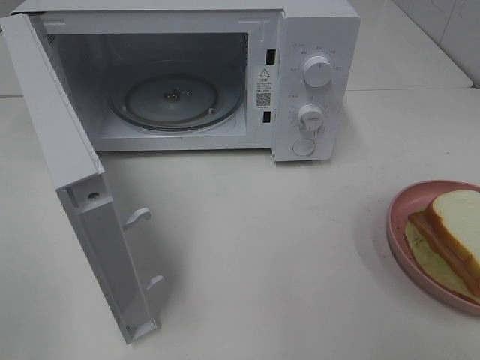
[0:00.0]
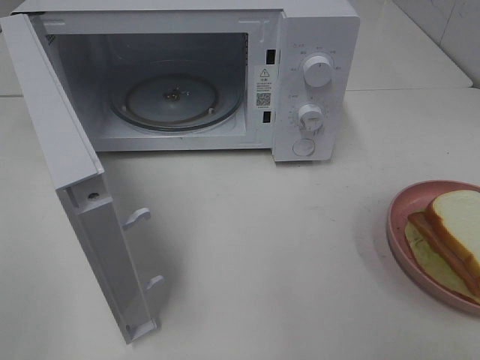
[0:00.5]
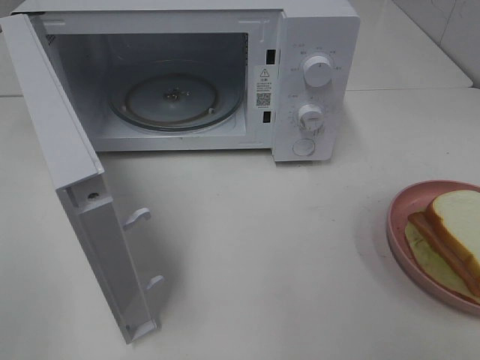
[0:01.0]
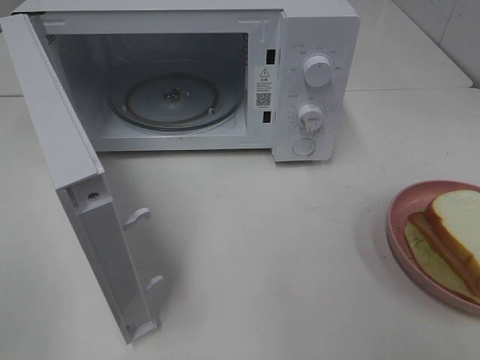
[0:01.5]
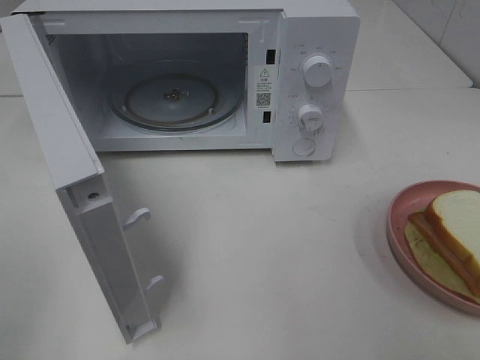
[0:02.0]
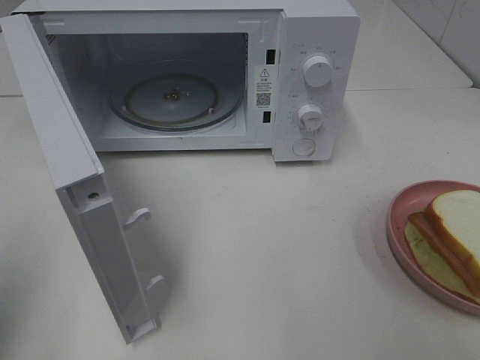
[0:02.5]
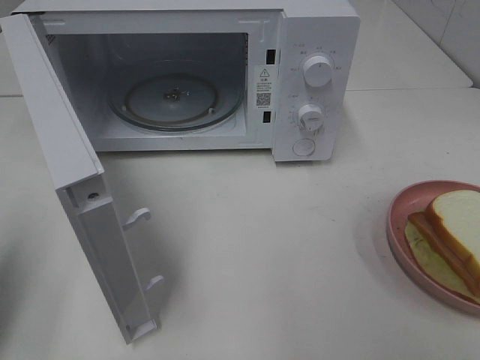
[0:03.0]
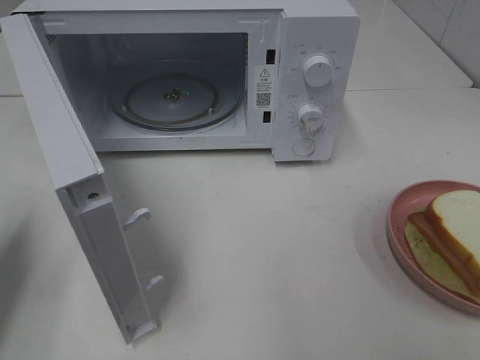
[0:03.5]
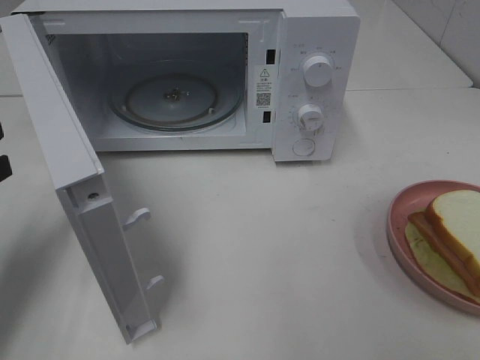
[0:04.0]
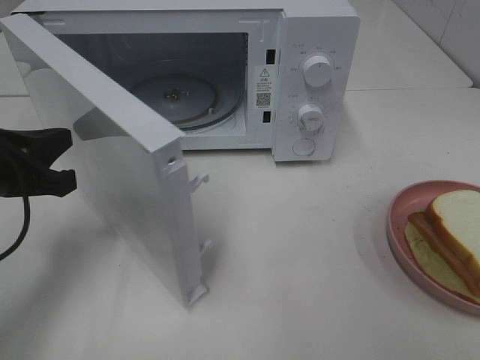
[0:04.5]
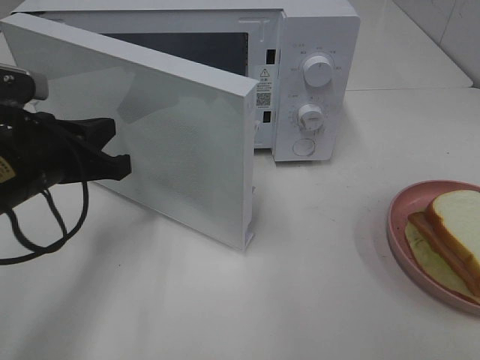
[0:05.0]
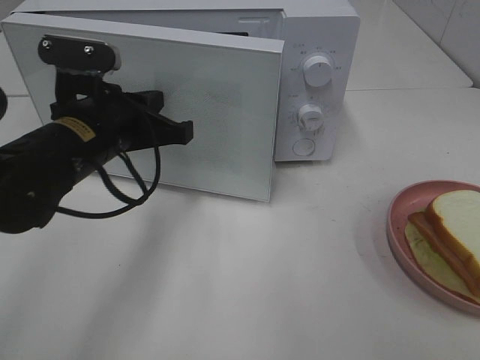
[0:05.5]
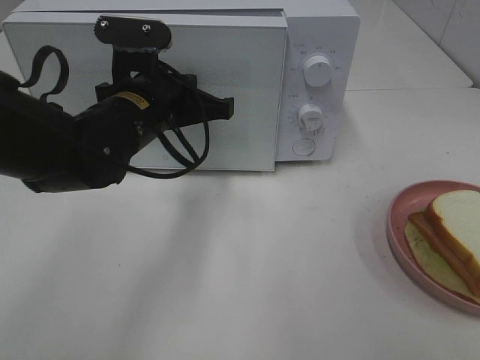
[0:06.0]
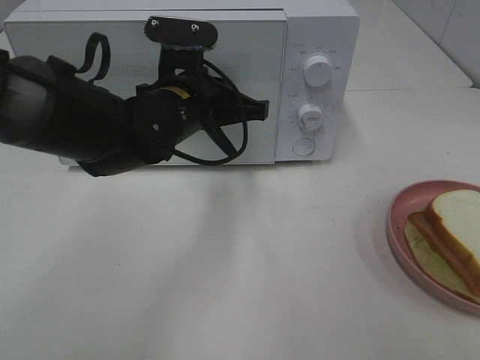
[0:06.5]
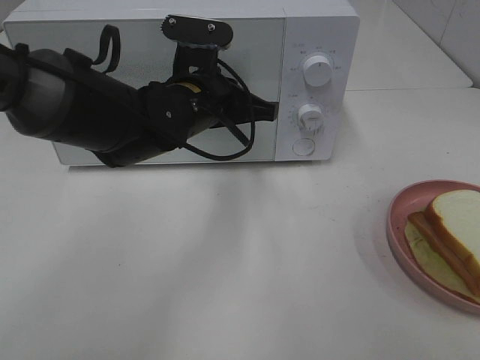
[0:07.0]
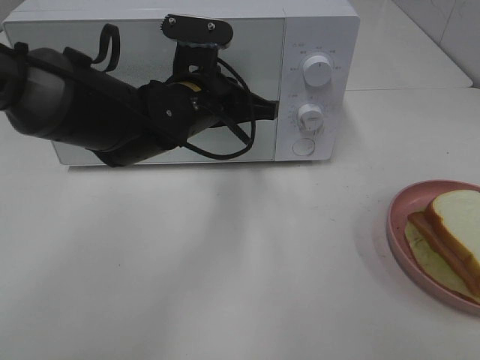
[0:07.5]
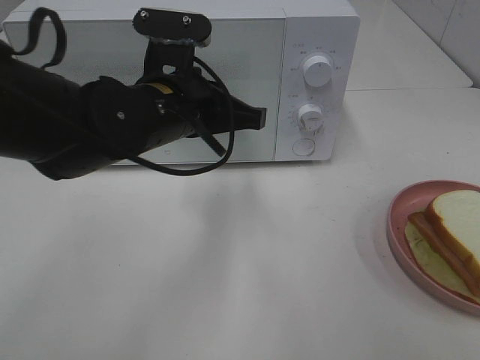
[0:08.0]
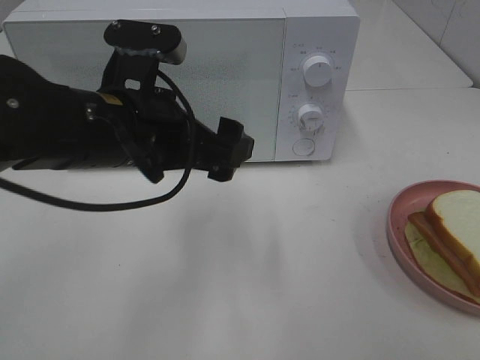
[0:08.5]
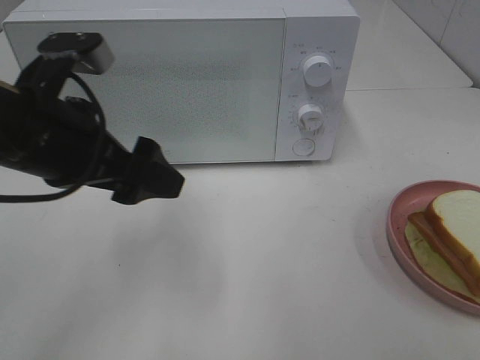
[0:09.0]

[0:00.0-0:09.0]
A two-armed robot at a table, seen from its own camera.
Task of the whole recording: Heat Sandwich.
Step, 0:00.0 to 0:08.5: Left hand: close the microwave door.
0:02.0 to 0:04.5: The left gripper moves forward and downward, roughly 25 cm, and closes.
0:04.5 to 0:07.0: The left gripper shifts approximately 25 cm to the right and forward.
0:07.0 to 0:09.0: The left gripper heads to the left, backward and upward, covering about 20 cm, and opens its fingers.

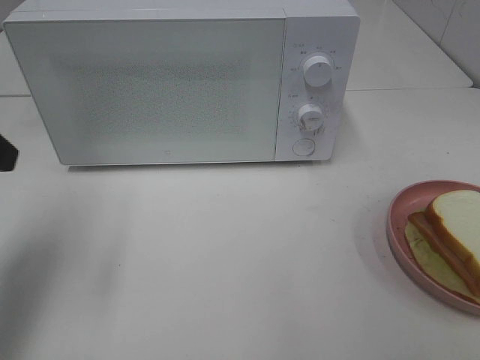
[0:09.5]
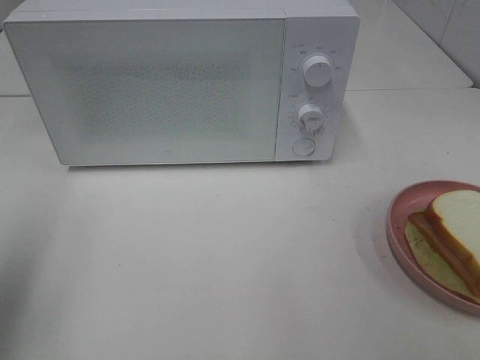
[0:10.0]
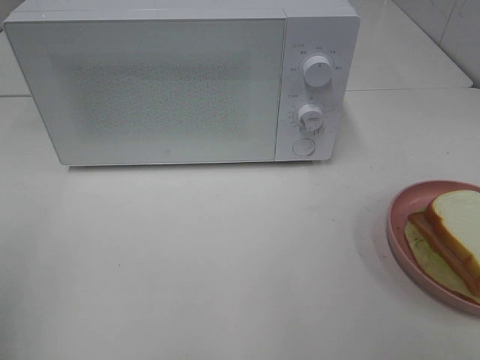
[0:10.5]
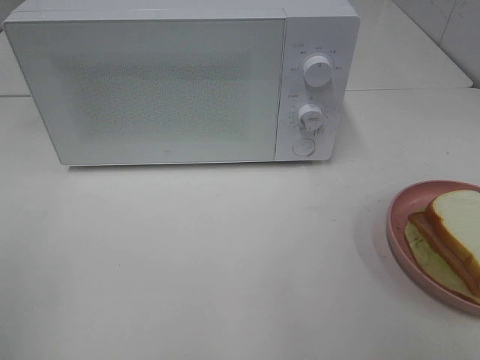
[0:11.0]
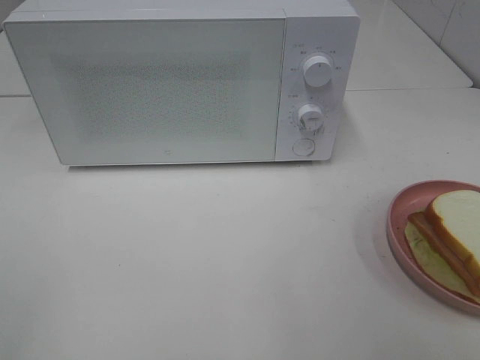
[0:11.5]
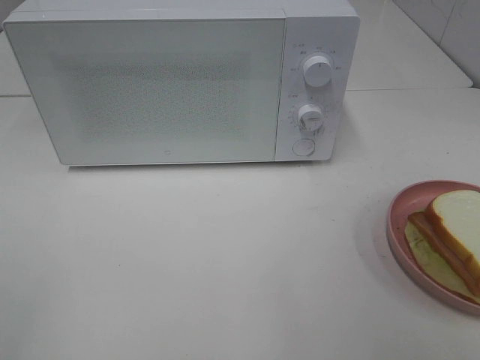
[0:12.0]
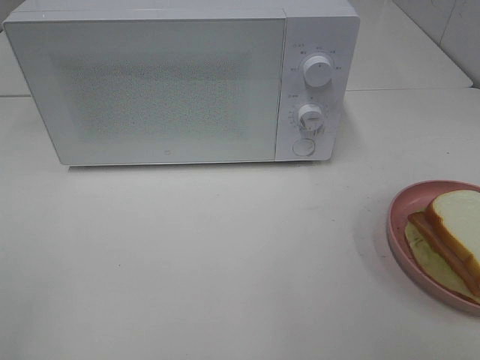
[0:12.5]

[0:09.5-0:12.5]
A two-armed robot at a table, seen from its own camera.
Task of the whole recording: Heat Sandwich.
0:09.5 to 0:11.0: The left gripper shifts approximately 15 cm backward.

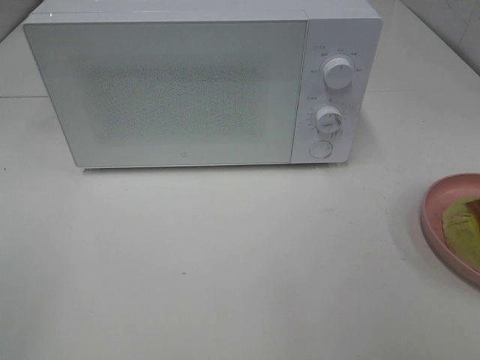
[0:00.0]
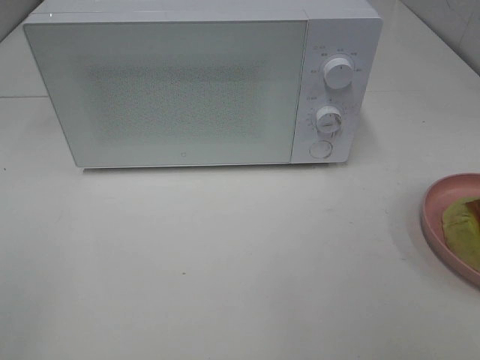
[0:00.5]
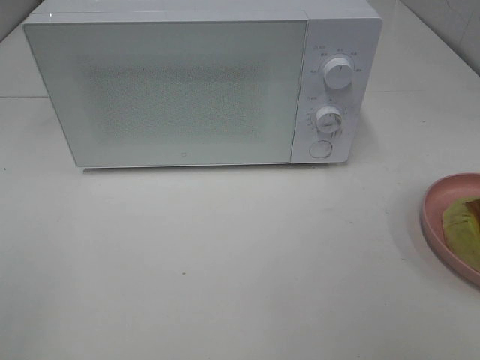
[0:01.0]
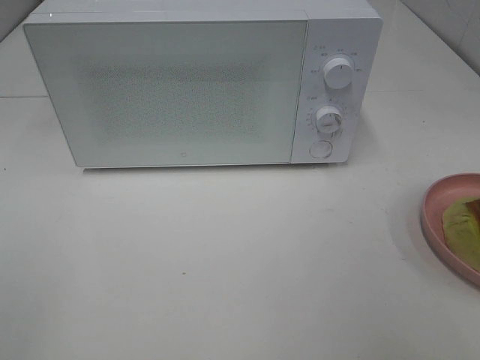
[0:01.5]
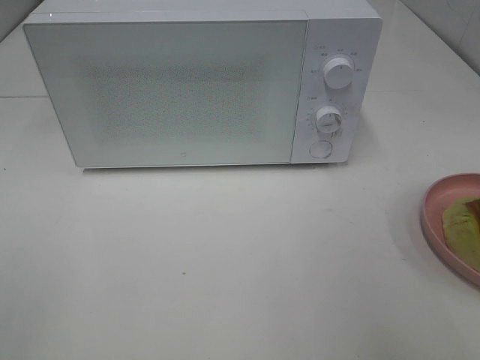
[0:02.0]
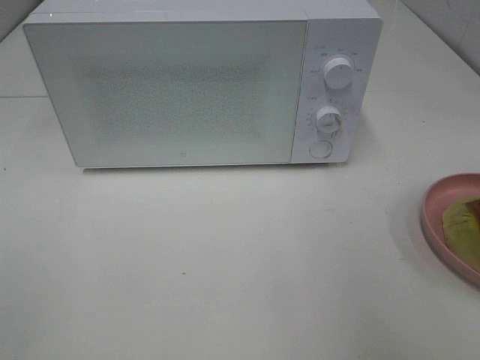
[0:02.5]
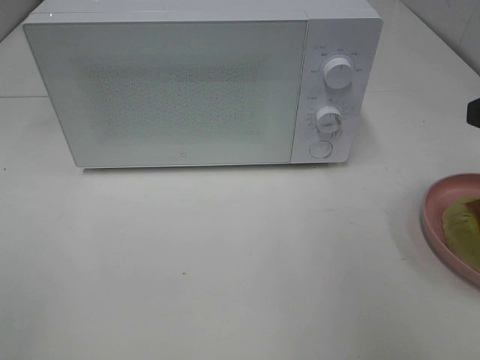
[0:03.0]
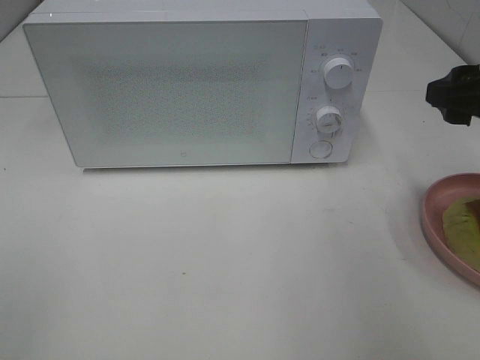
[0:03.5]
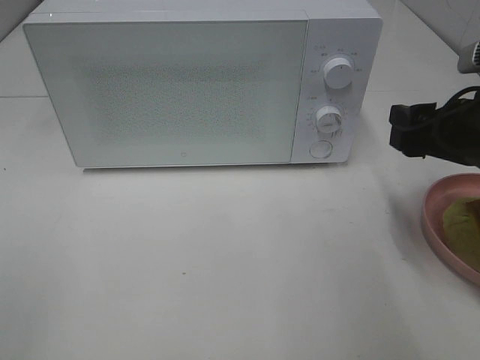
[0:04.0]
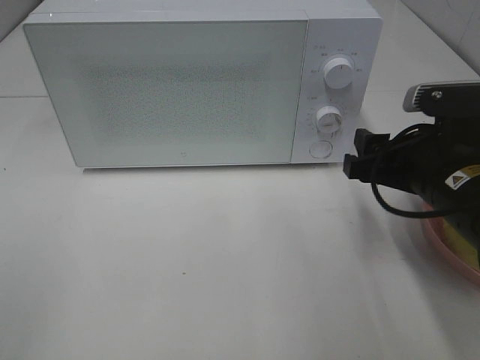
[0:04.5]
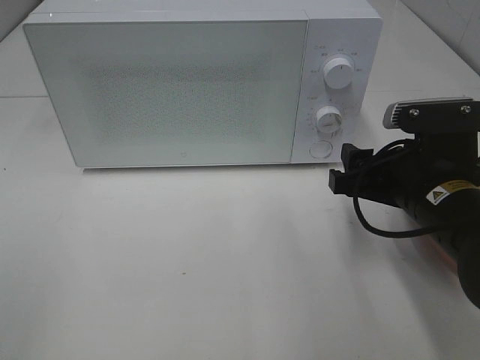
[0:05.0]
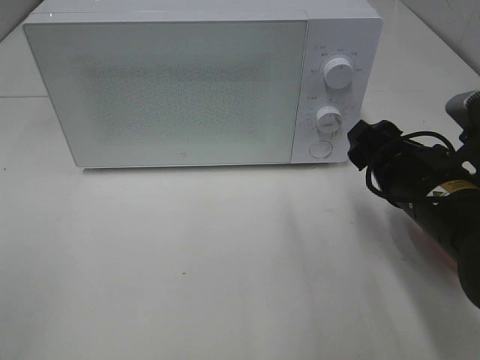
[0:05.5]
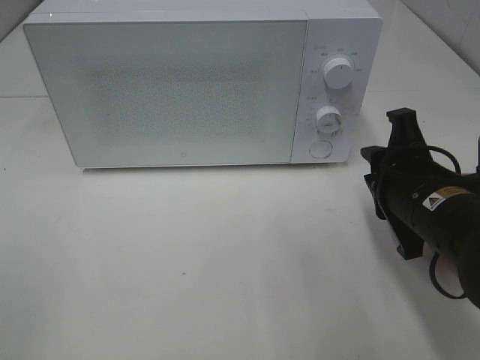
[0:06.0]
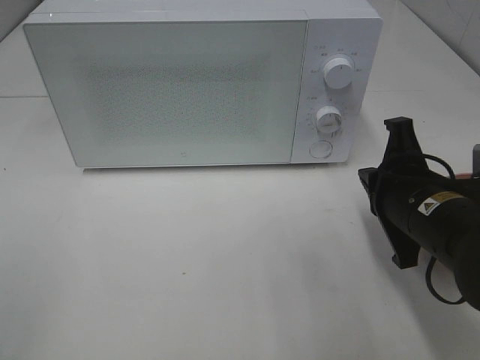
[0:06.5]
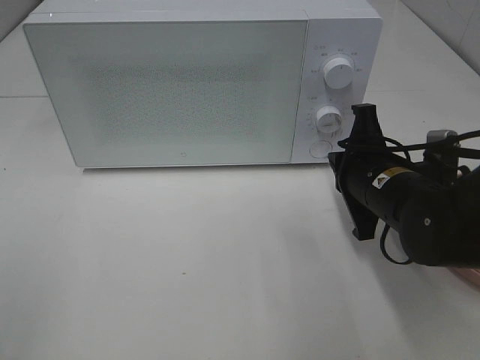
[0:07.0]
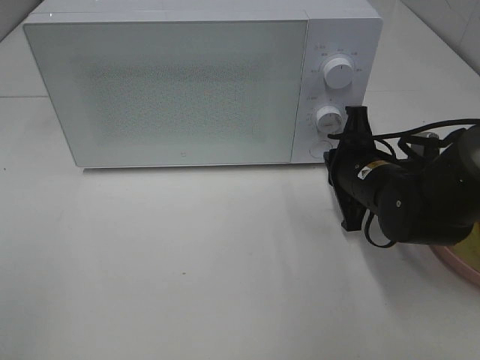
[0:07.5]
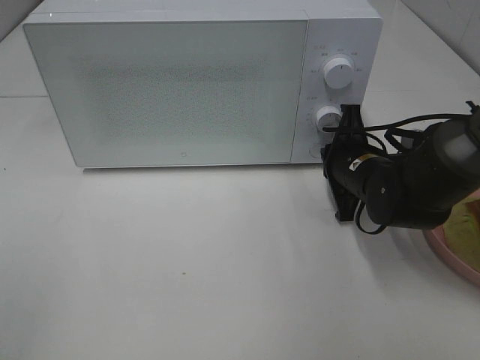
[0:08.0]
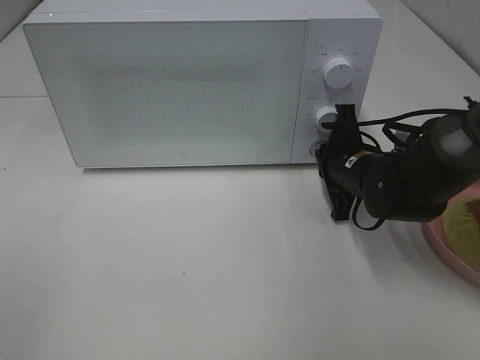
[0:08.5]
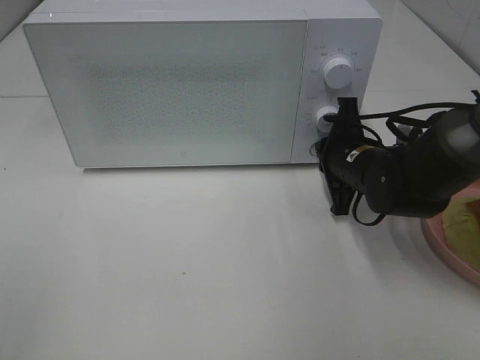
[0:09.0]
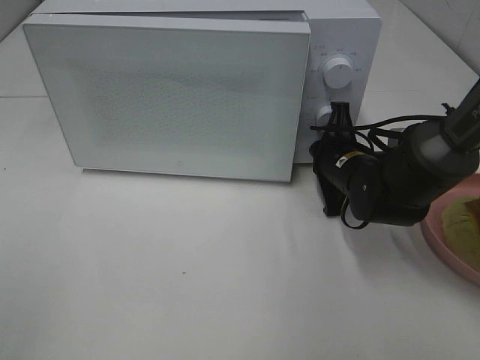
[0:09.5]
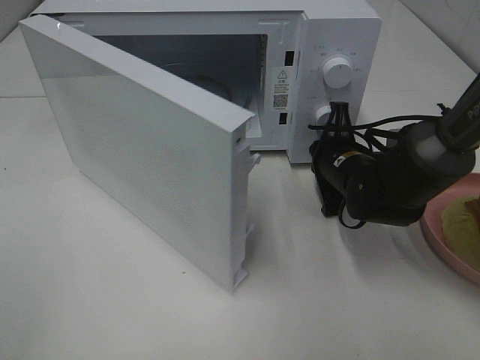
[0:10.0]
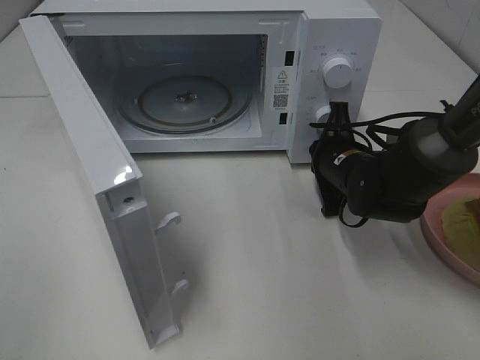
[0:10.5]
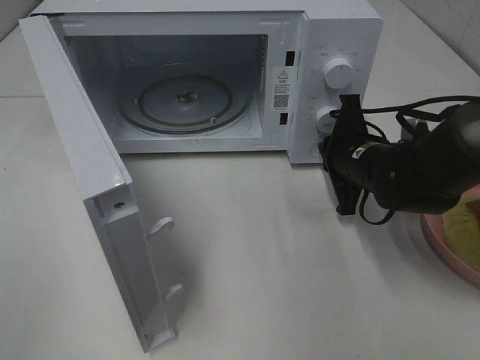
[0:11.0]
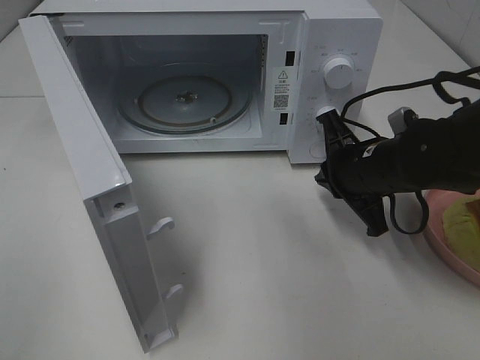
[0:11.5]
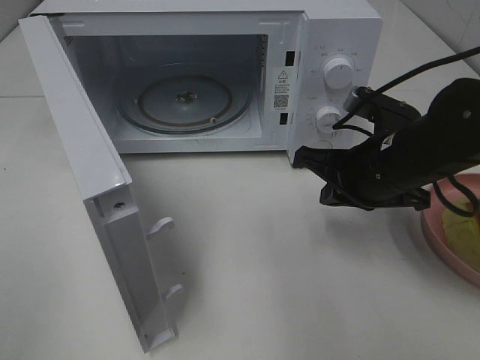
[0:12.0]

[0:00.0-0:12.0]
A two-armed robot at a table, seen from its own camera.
Task of the whole recording: Heat Sandwich.
Step, 0:00.0 to 0:11.0: Right hand: press the switch.
0:02.0 to 0:04.0: The right gripper is displaced forward and downward by approximately 15 cm.
0:04.0 to 0:06.0: The right gripper heads to the left and downward, covering approximately 10 cm, and closes.
0:06.0 to 0:08.0: The right gripper heads forward and downward, covering approximately 15 cm, and closes its fingers.
0:10.0 to 0:12.0: The right gripper moves backward and upward, some 10 cm.

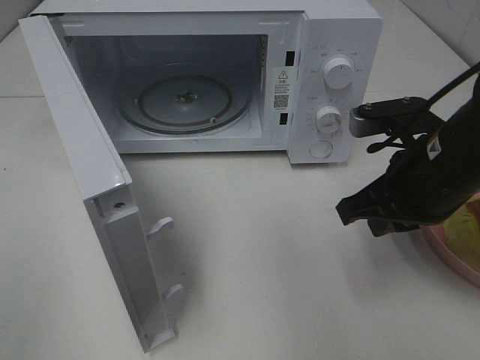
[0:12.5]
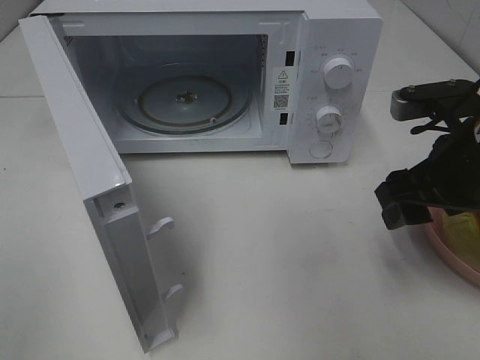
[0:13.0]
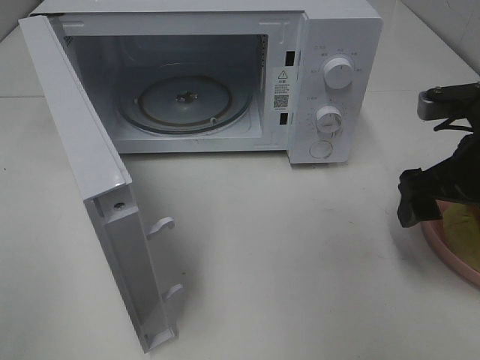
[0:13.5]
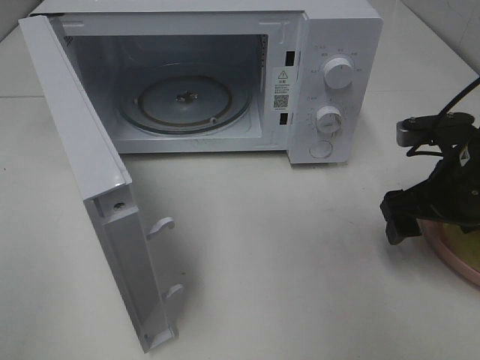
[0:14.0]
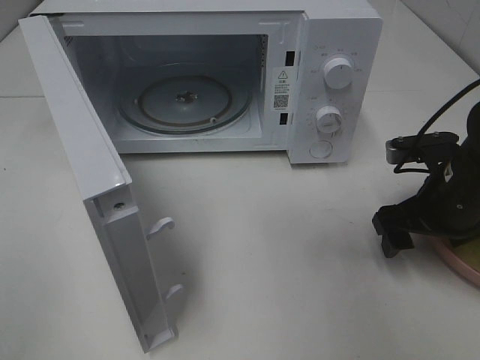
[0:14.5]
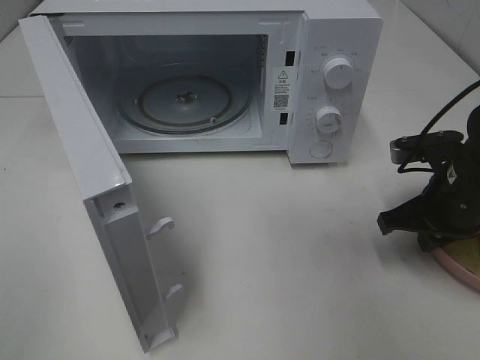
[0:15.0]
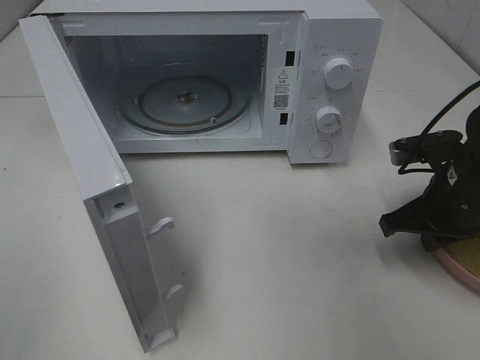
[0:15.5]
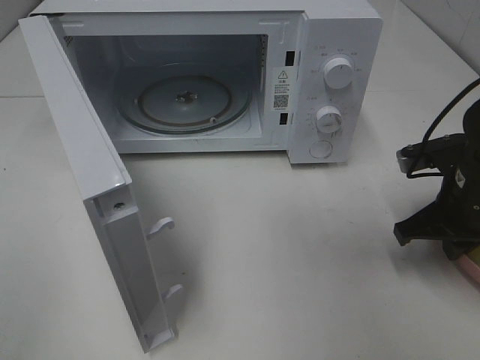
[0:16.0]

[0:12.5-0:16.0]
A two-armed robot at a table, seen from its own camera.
Task of the whole recording: Heat Sandwich.
Step, 0:12.5 to 0:15.0: Right hand: grab the plate with the sandwich.
0:12.5 to 0:14.5: The right gripper moves downward and to the right, some 10 cm, and opens up.
0:14.5 to 0:16.0: The right gripper closes up.
